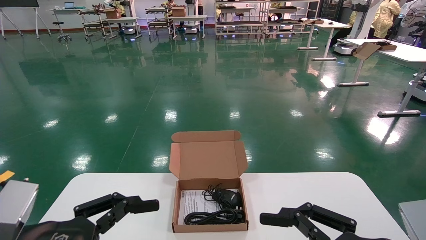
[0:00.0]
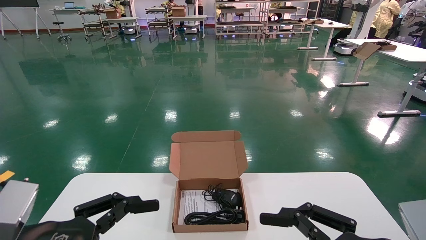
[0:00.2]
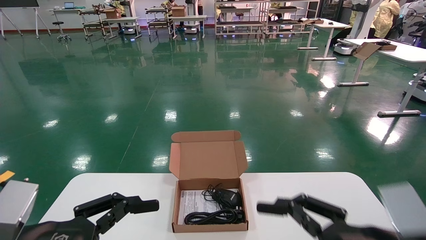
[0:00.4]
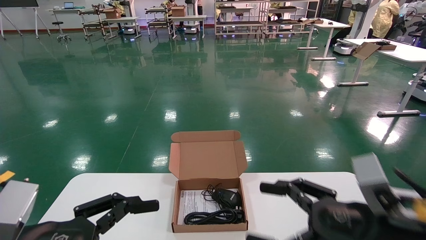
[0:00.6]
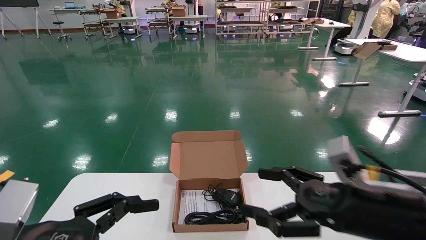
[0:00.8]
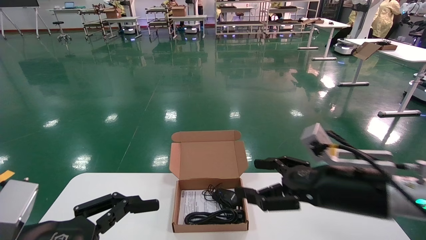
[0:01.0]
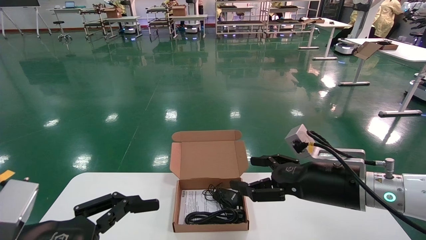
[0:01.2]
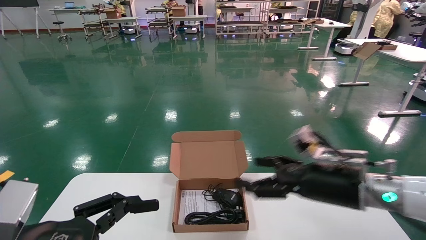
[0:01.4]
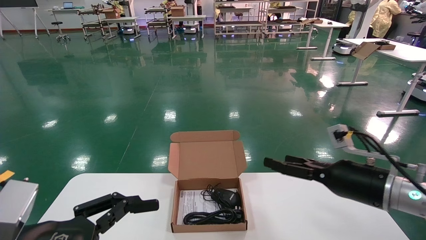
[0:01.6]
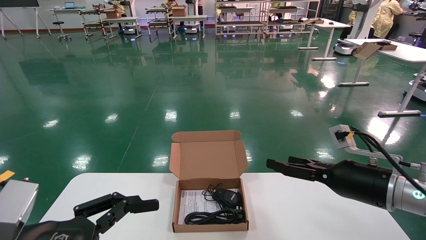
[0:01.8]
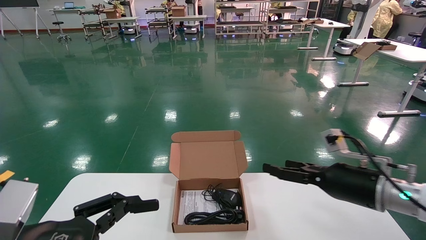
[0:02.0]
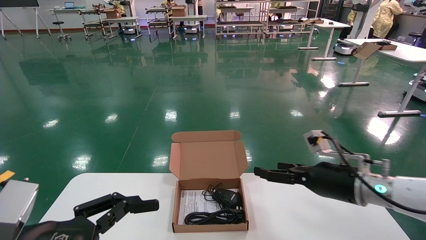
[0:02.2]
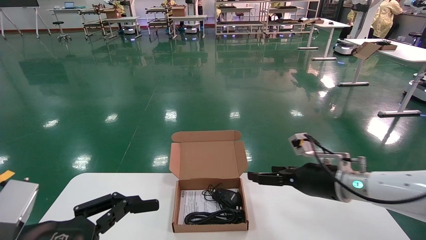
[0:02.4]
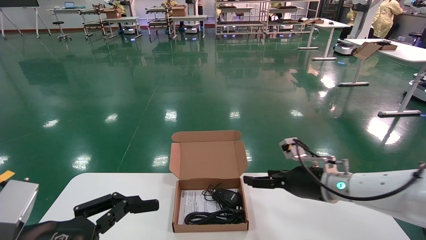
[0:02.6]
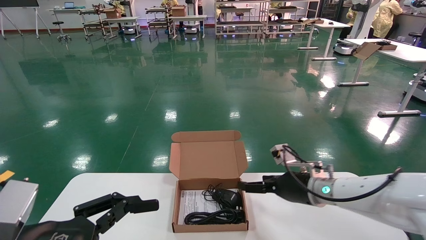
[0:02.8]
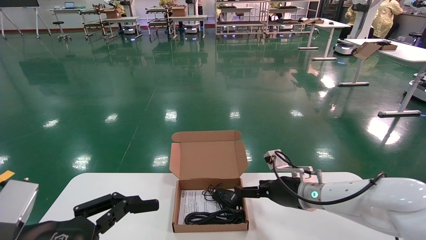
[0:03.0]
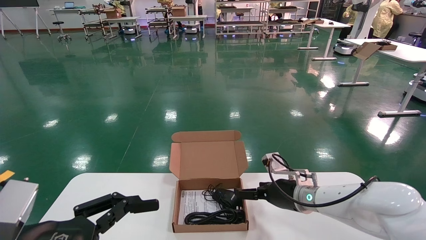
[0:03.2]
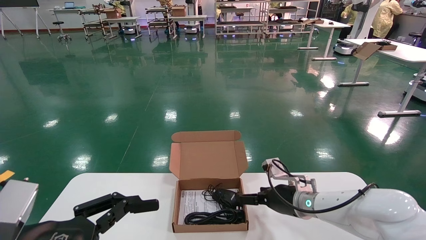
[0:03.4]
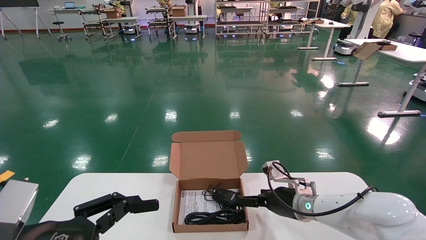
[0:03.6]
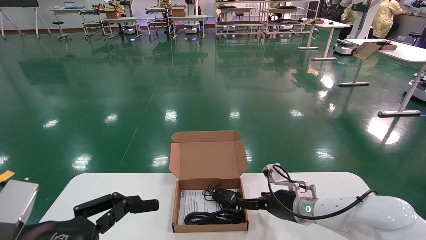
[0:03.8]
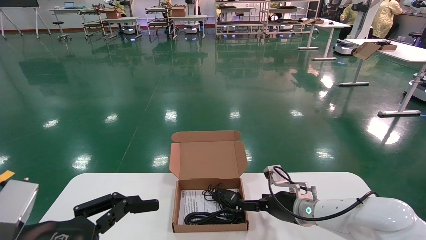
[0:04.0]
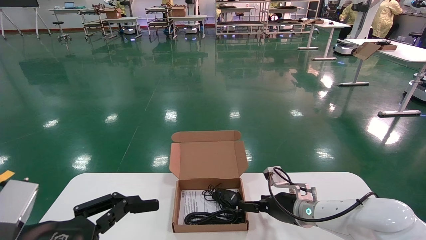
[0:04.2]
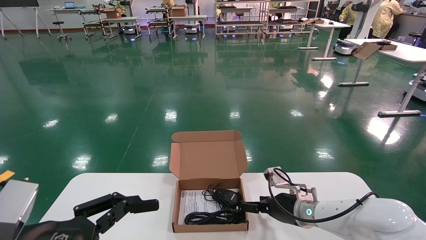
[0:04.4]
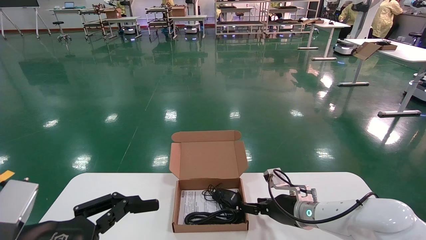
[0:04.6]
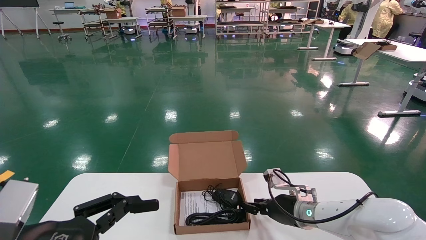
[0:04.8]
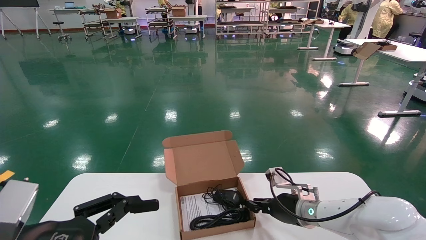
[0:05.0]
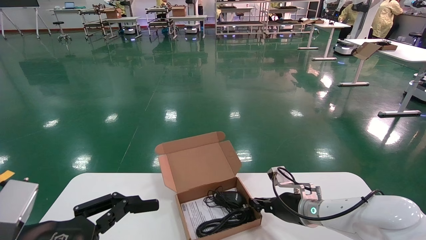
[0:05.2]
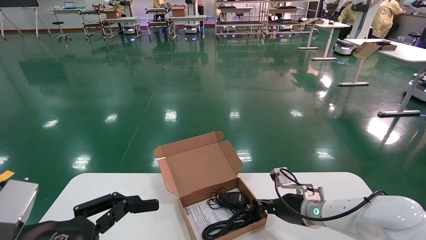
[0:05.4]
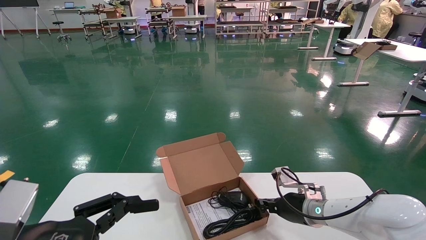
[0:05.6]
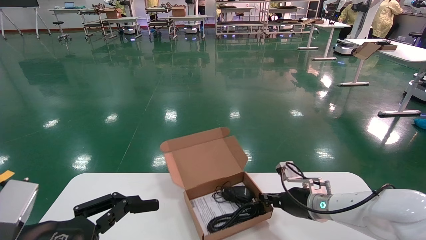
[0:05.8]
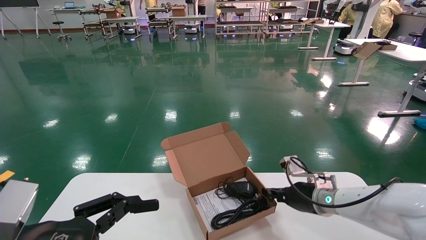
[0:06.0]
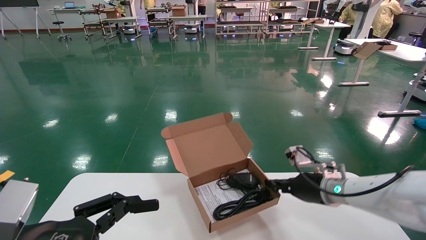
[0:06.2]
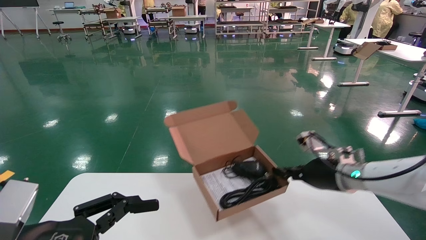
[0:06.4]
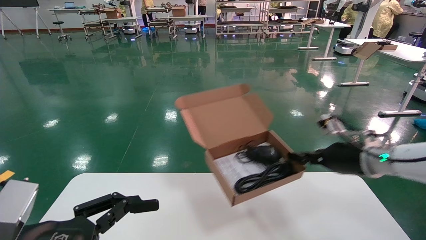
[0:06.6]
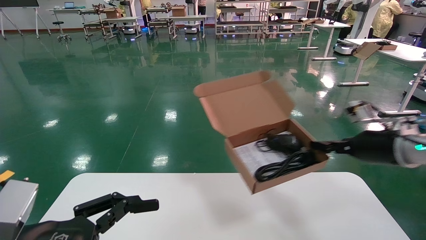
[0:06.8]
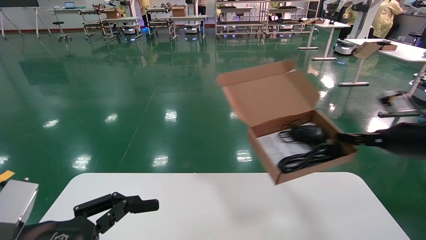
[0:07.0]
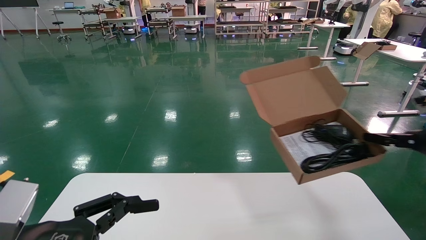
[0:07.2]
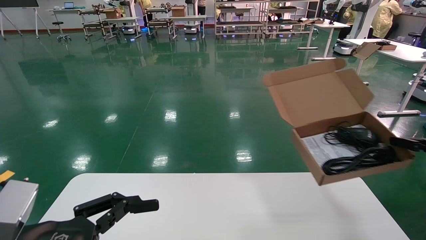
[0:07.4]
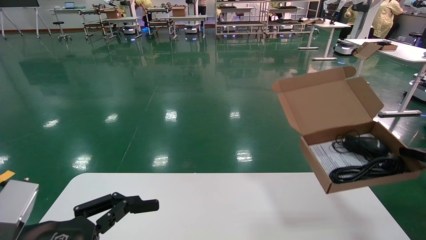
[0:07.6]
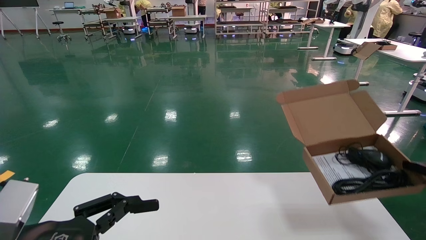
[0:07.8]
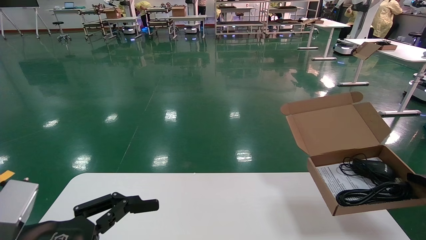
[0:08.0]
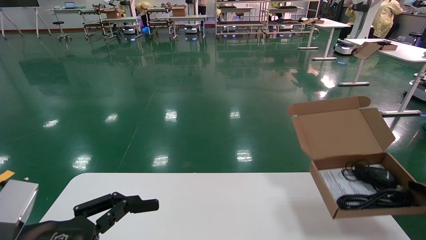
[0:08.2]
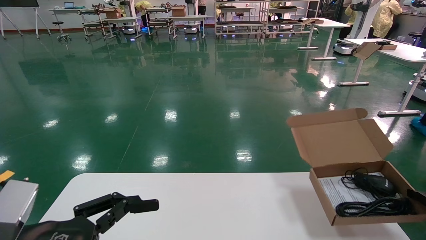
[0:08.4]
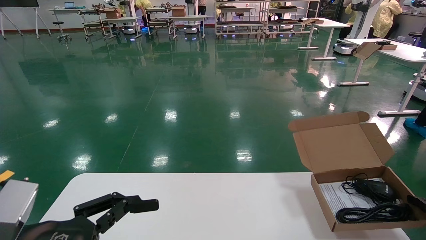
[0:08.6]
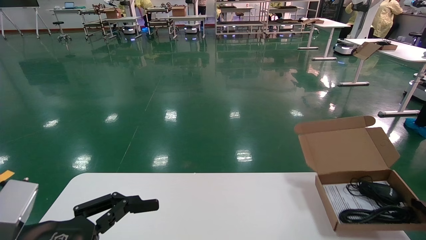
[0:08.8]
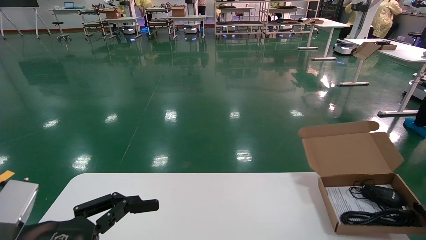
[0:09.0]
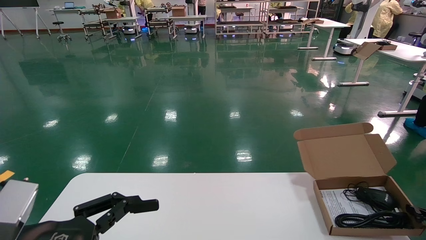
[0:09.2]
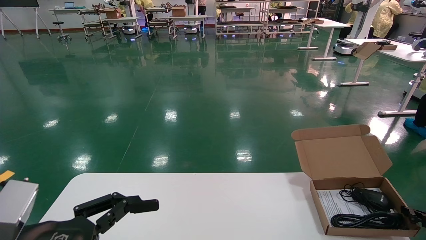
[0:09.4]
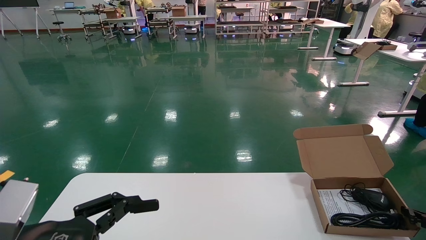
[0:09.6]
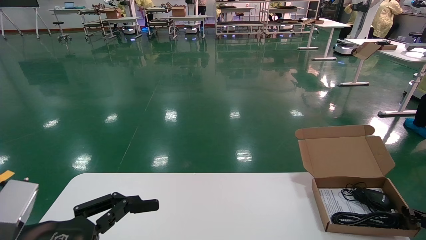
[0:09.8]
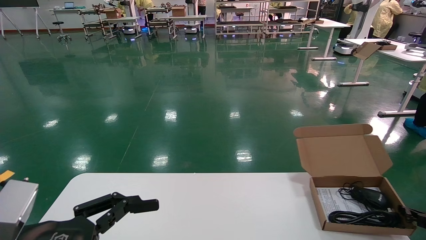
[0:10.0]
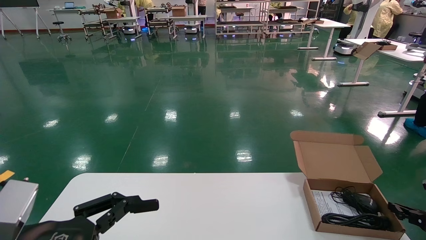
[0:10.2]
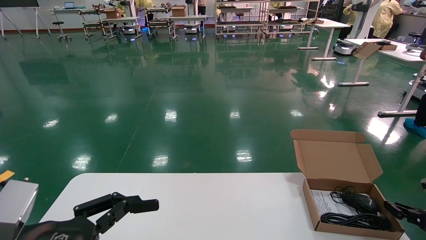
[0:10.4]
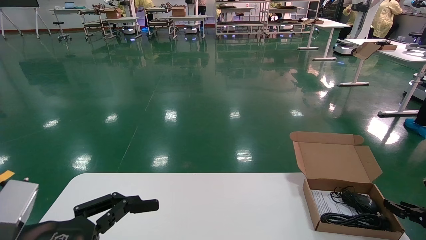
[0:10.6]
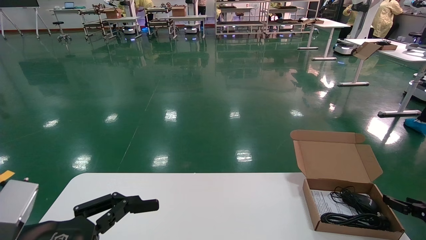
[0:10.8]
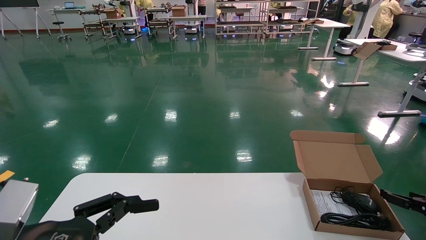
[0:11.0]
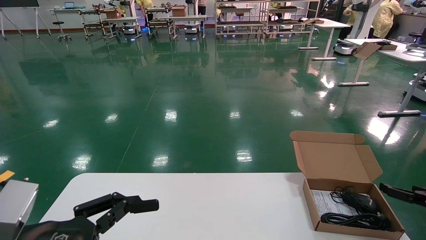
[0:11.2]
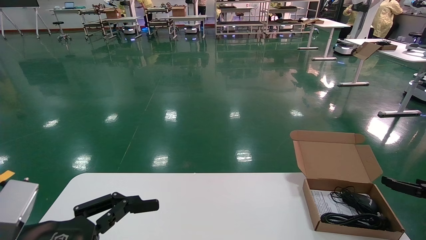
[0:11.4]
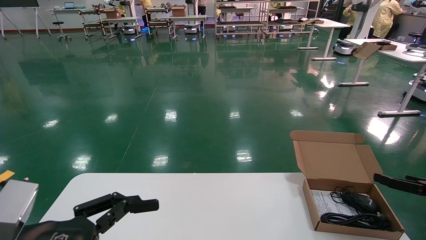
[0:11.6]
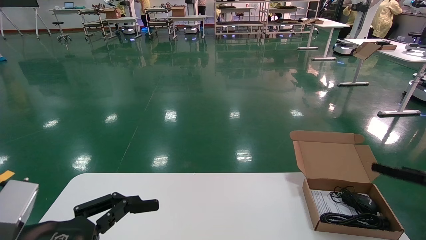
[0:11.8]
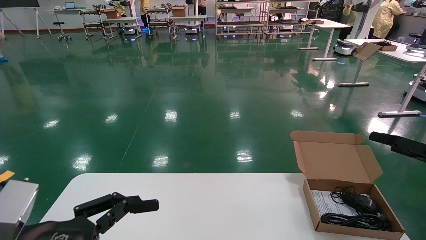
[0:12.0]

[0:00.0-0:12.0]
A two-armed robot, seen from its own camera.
Task of the whole recording: move the position of the storage box with accessories on the table.
Step, 0:01.0 to 0:05.6: Grab and pick up the open mouse box from the accessory packaging area.
Step, 0:05.8 to 0:10.4: Place the open mouse box onto the operation table.
0:00.0 to 0:01.6: The right gripper is displaced forward by about 15 cm.
0:01.6 to 0:03.0: The right gripper heads forward, to the left and downward, covering approximately 15 cm.
0:03.0 to 0:04.4: The grippers move only a little.
0:04.4 to 0:06.0: The right gripper changes place by about 5 cm, and closes.
0:06.0 to 0:07.6: The right gripper shifts approximately 30 cm to the right and backward.
0:07.6 to 0:09.0: The right gripper is displaced downward by approximately 15 cm.
0:09.0 to 0:10.4: There are only small adjustments of the grippers.
0:10.4 to 0:12.0: The right gripper is displaced upward and backward by some 15 cm, and opens its fingers.

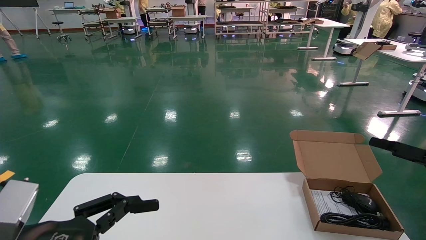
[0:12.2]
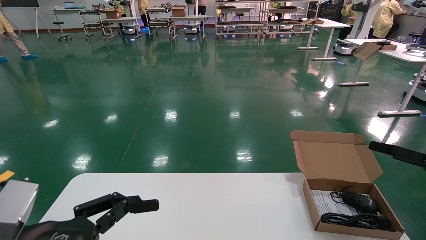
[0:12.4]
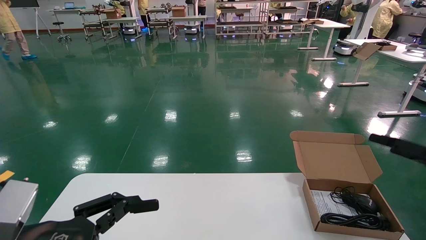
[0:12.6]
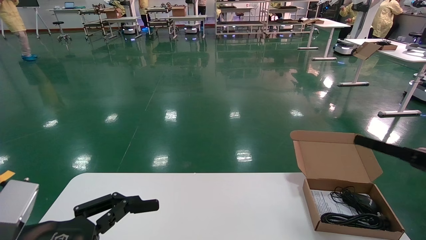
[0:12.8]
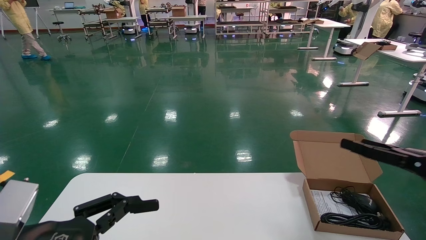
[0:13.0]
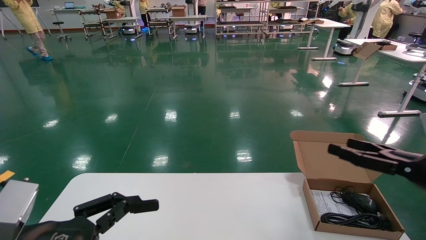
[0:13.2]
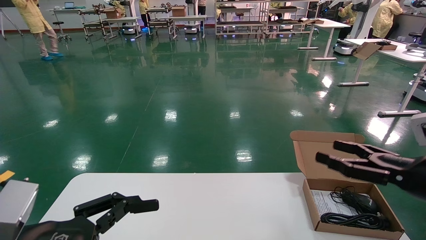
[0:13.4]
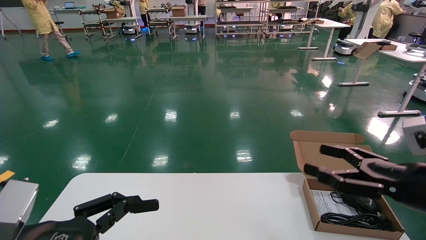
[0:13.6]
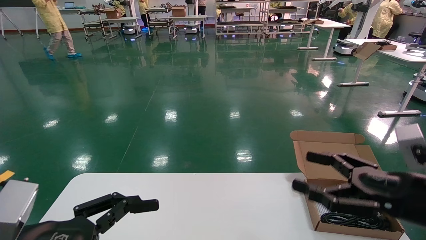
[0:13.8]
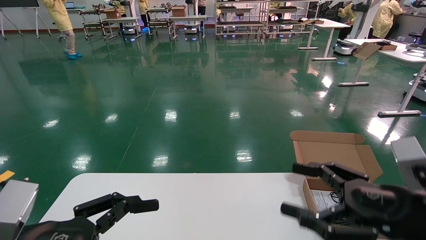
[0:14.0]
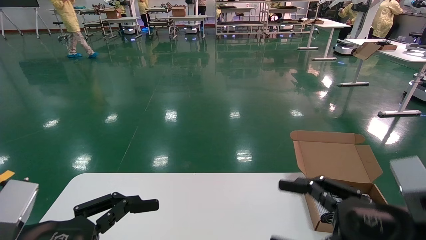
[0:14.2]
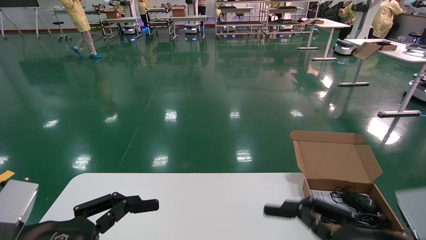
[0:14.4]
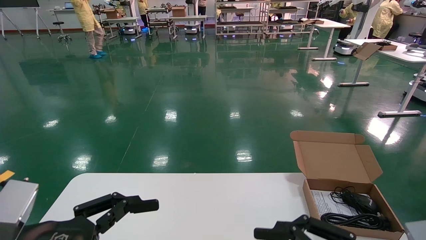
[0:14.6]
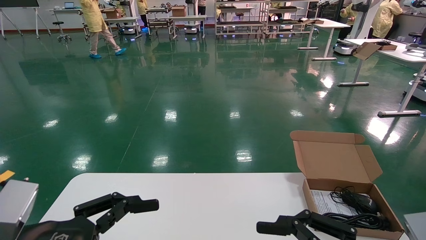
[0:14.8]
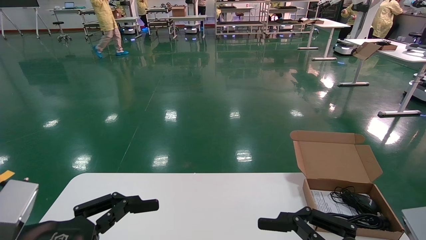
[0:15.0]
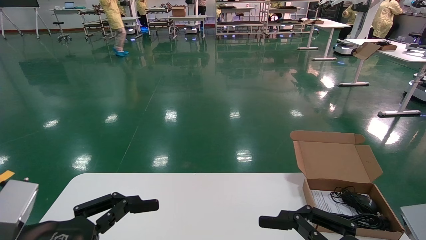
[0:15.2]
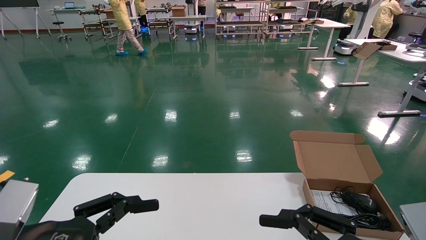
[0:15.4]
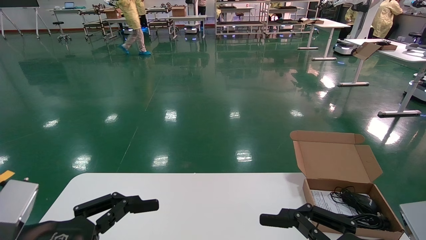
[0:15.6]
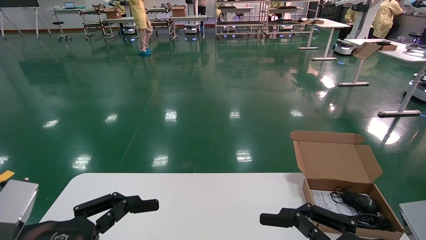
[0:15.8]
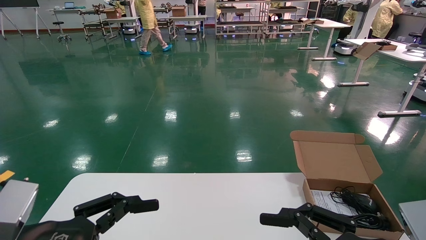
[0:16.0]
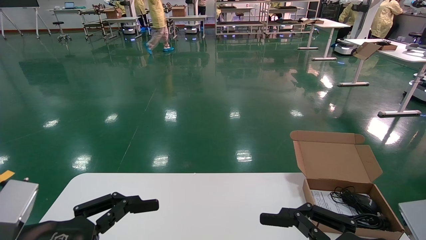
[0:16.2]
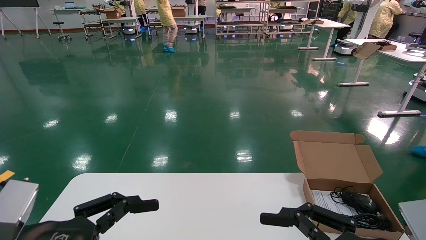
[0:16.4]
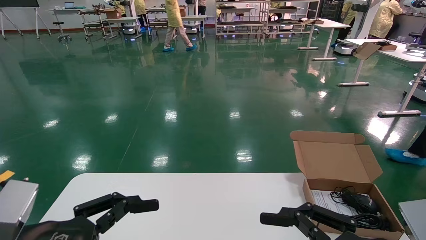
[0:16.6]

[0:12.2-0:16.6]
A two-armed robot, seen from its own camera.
Task of the whole recording: move the position of the storage box with accessories on the table.
0:12.2 to 0:13.6: The right gripper is displaced to the left by about 15 cm.
0:13.6 to 0:15.2: The right gripper moves backward and to the left, about 15 cm.
0:15.2 to 0:16.6: Neither gripper changes place.
